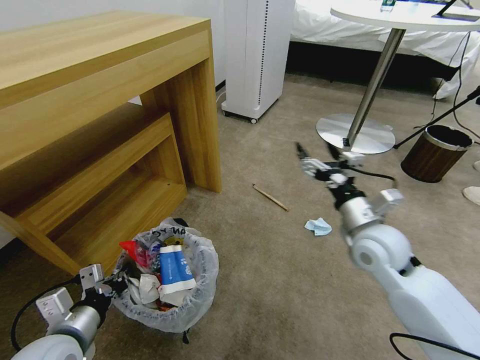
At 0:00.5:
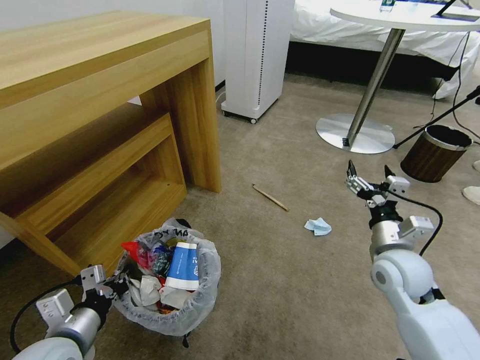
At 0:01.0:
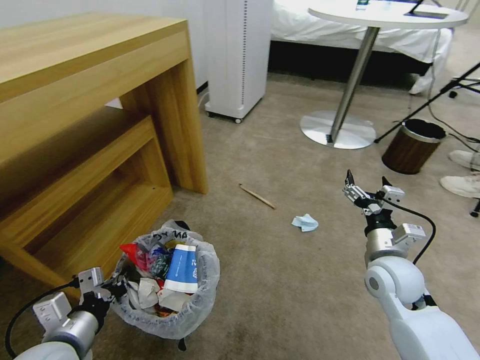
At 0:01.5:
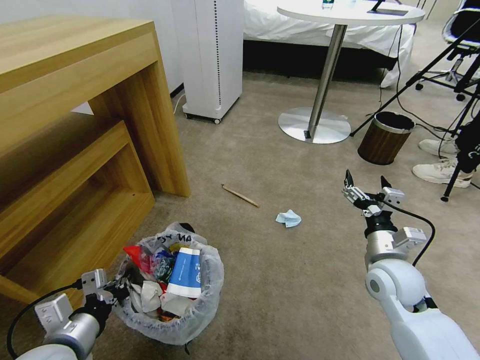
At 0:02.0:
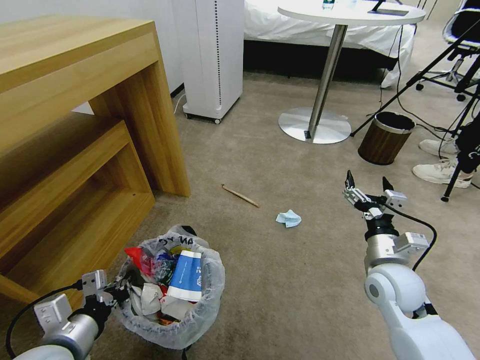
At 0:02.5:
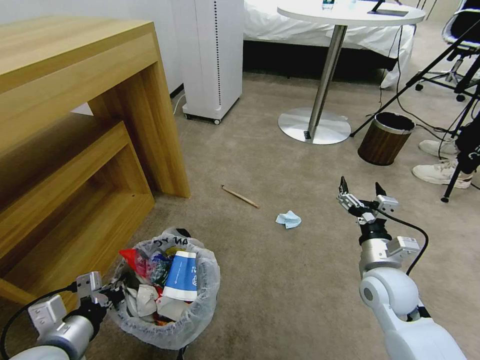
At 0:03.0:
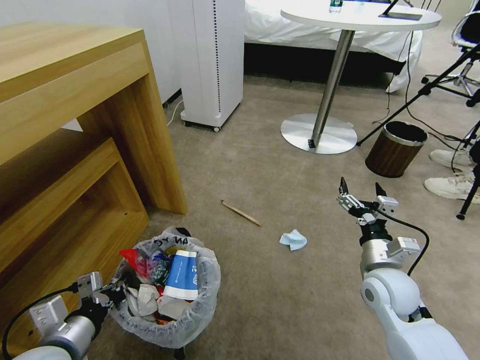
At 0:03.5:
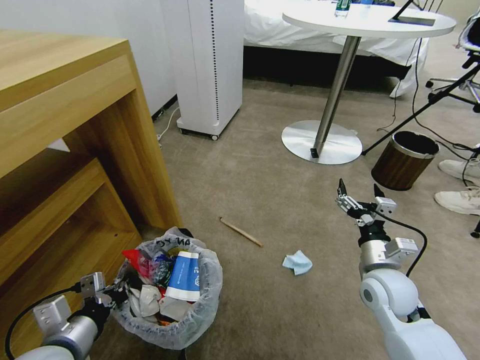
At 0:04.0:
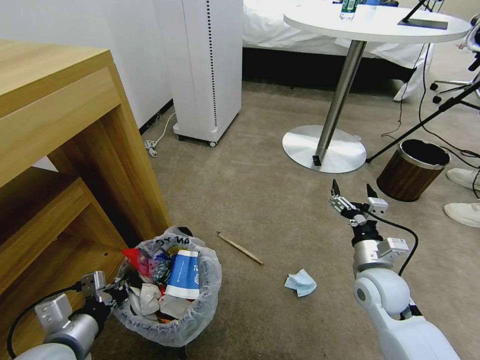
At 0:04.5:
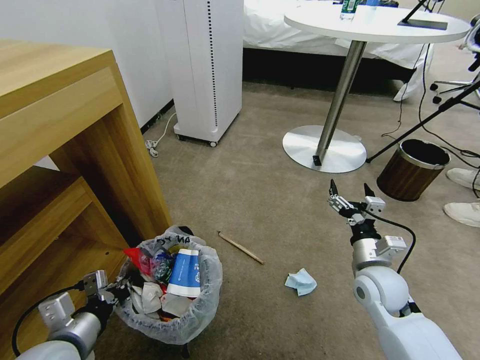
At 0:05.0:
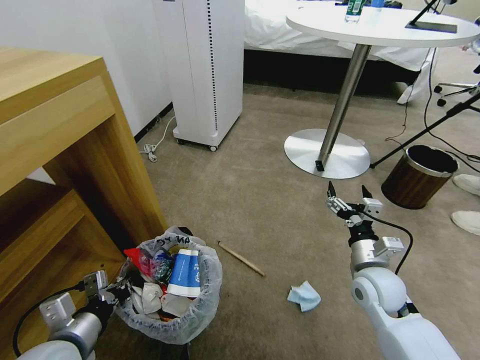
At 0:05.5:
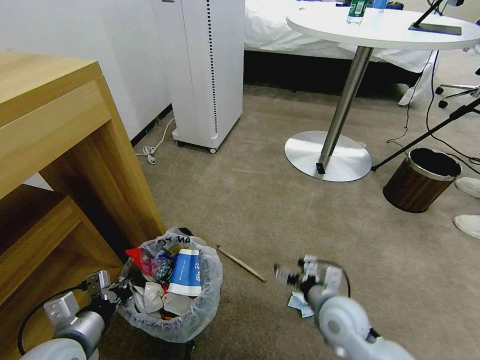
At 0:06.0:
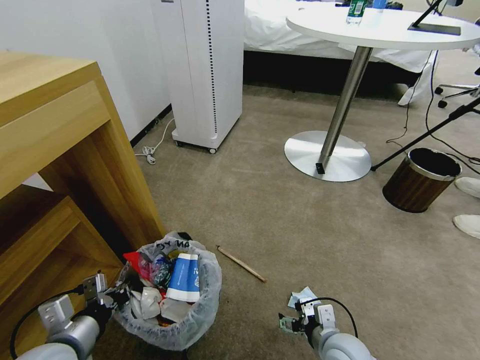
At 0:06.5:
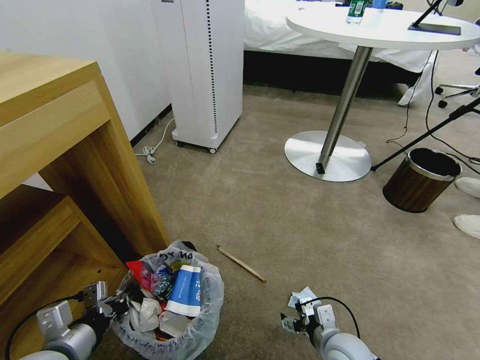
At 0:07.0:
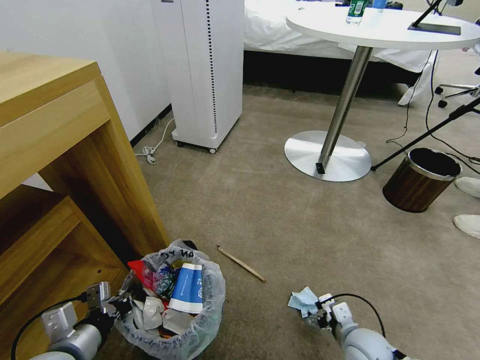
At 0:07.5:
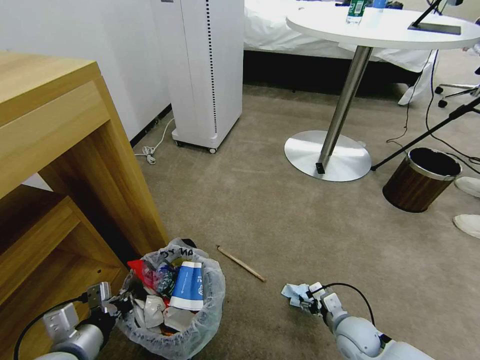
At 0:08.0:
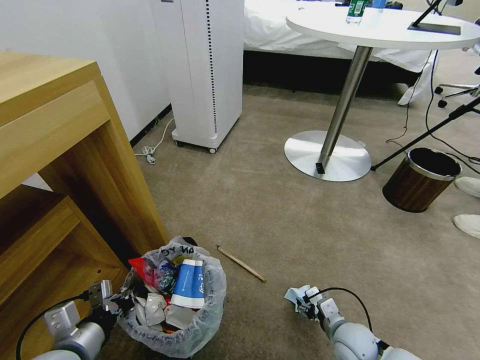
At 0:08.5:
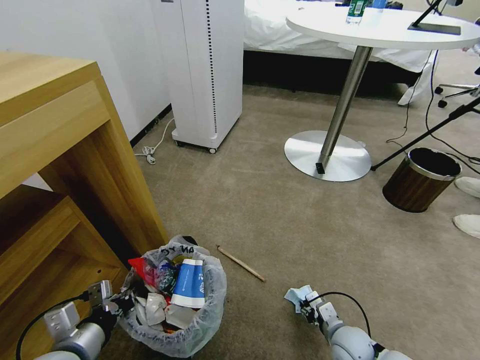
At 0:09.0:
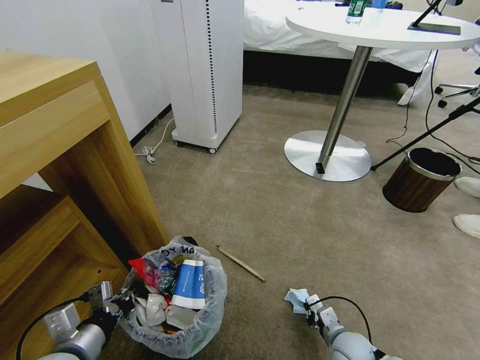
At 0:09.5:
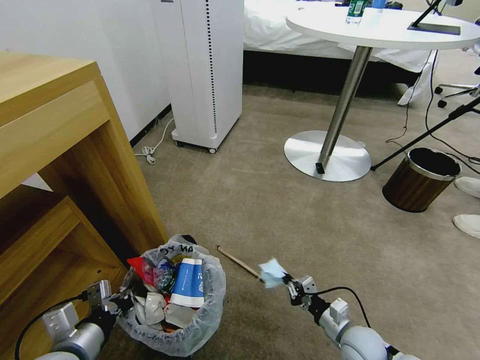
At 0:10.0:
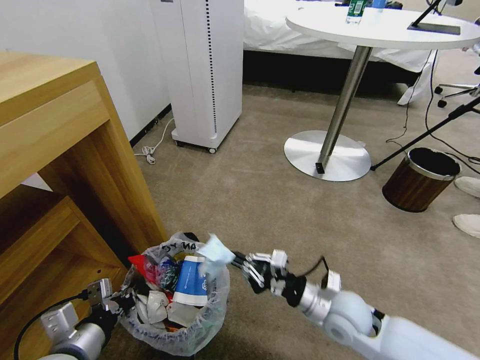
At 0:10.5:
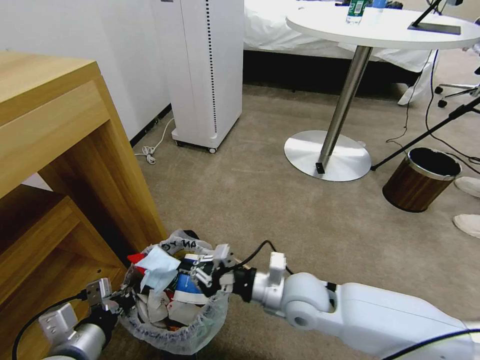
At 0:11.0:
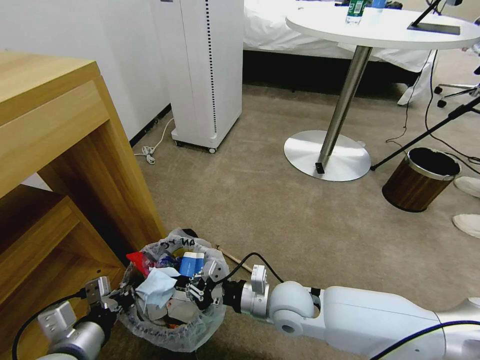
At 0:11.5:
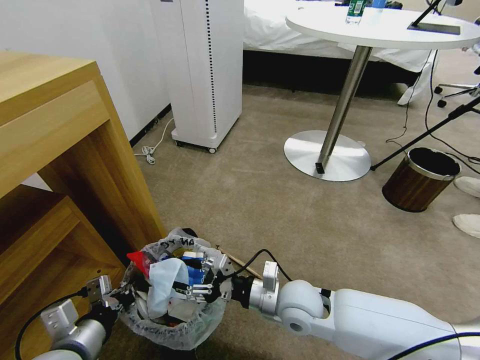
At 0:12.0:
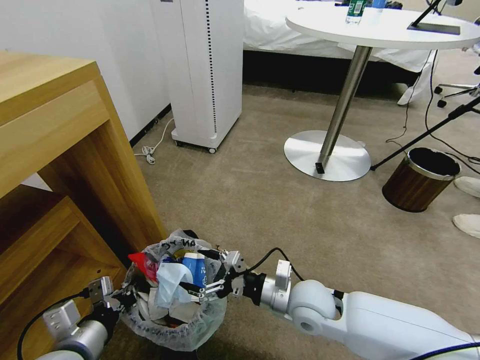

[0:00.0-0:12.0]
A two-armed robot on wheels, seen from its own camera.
Task of the whole recording: Pick up the trash bin and place the garbage on the floor into it.
0:00.0 to 0:02.0: The right gripper is displaced downward by some 5 cm.
0:04.0 to 0:06.0: The right gripper is displaced backward, downward and to the left by roughly 15 cm.
0:06.0 to 0:08.0: The right gripper is displaced downward and to the right by about 10 cm.
0:08.0 to 0:10.0: The right gripper shifts some 15 cm upward and to the left, and closes its fingers.
0:10.0 to 0:12.0: The right gripper shifts about 5 cm to the left, and opens its fingers.

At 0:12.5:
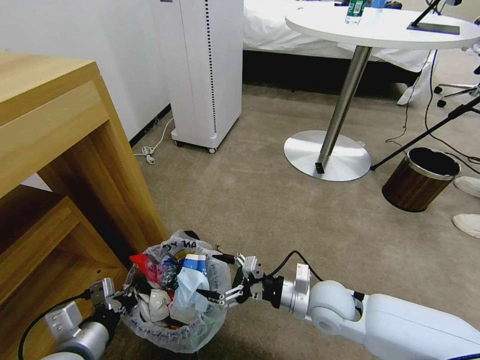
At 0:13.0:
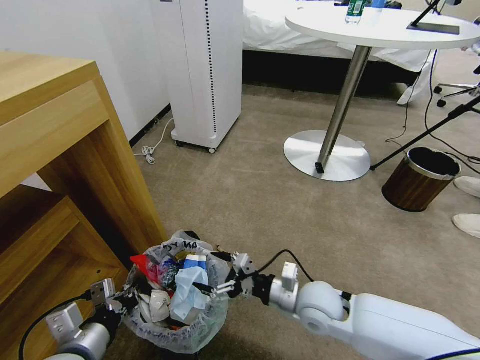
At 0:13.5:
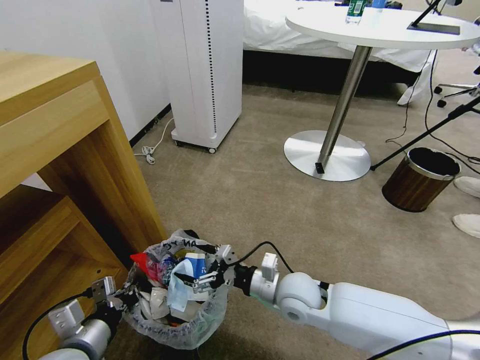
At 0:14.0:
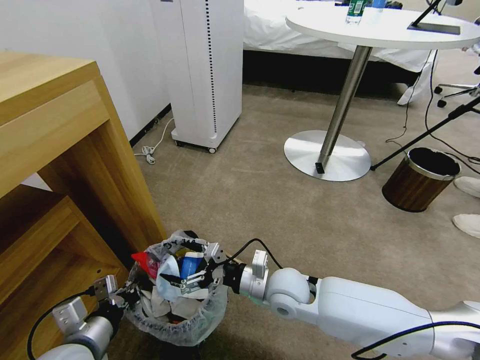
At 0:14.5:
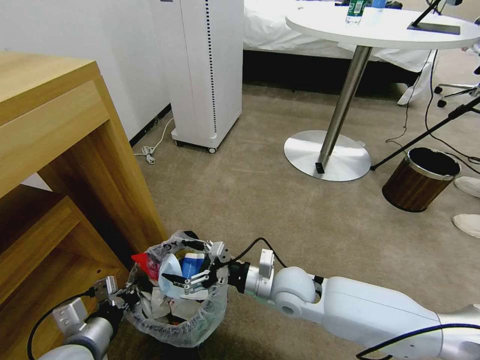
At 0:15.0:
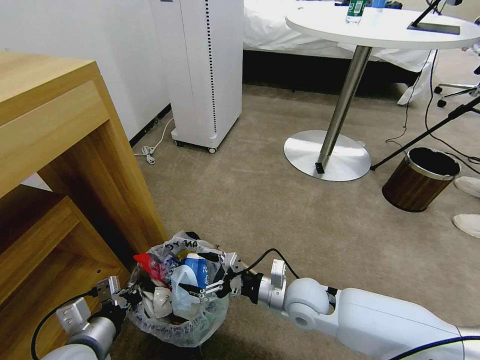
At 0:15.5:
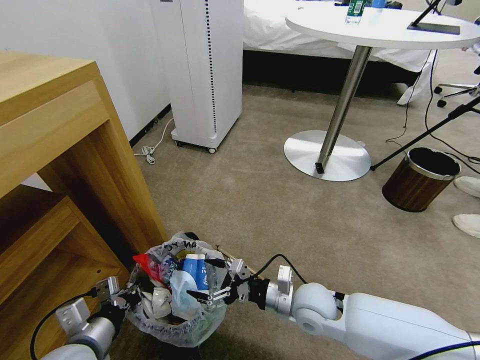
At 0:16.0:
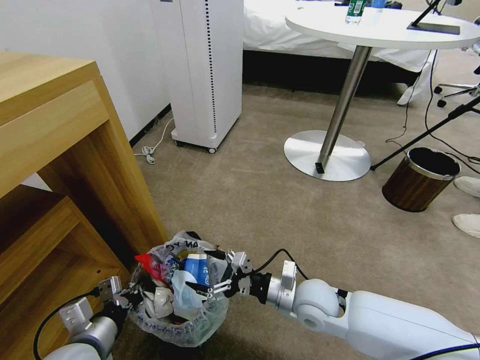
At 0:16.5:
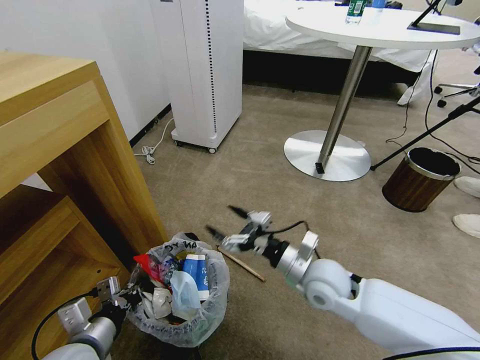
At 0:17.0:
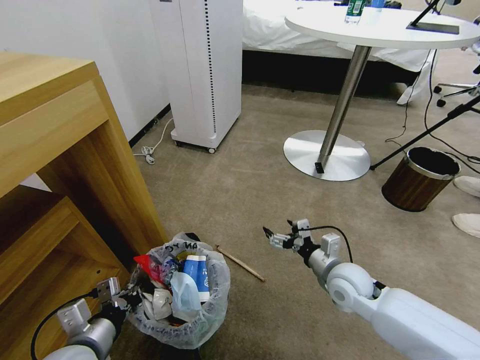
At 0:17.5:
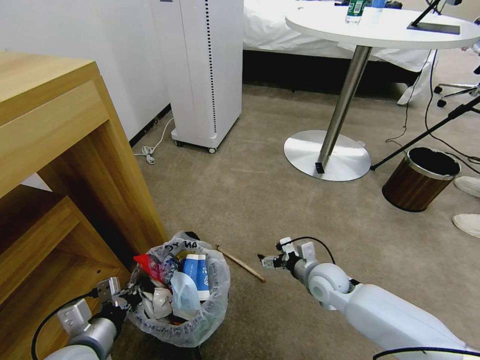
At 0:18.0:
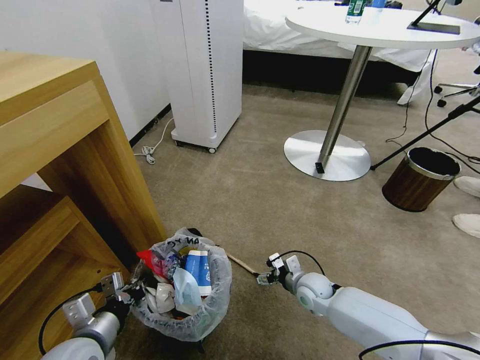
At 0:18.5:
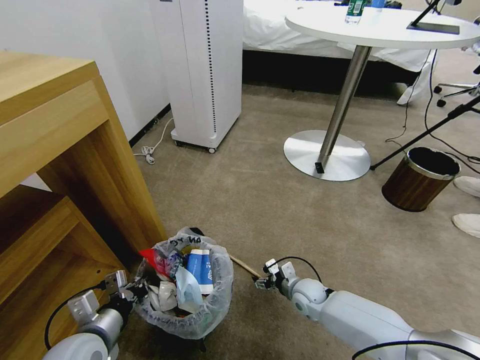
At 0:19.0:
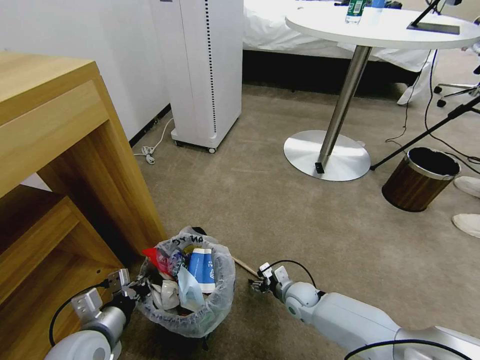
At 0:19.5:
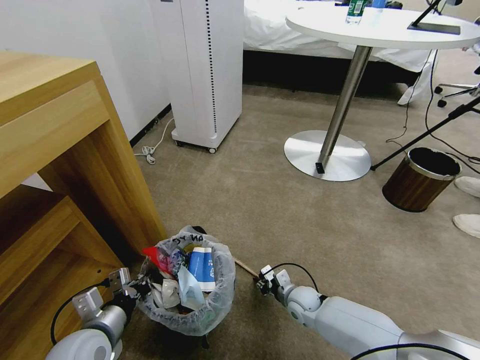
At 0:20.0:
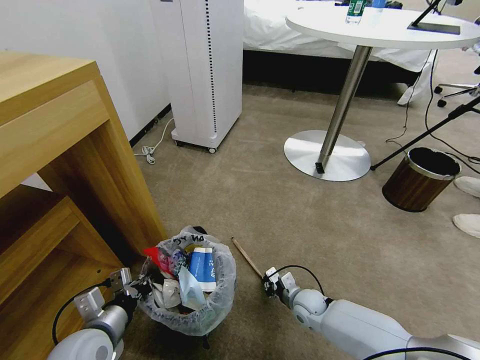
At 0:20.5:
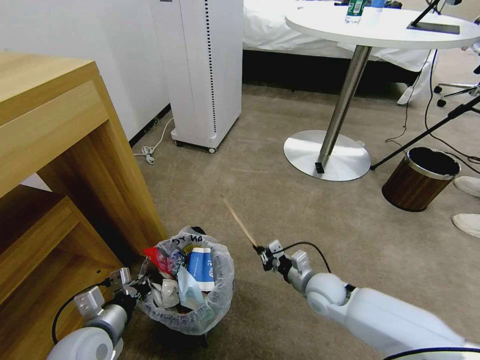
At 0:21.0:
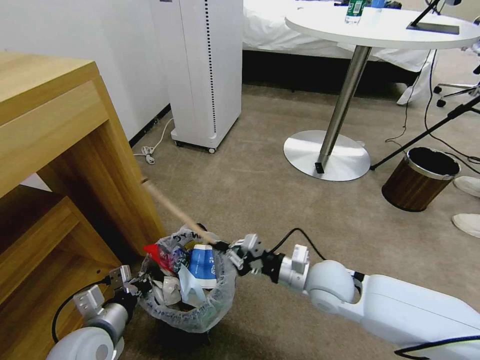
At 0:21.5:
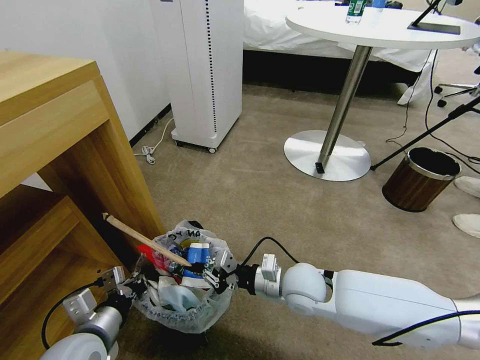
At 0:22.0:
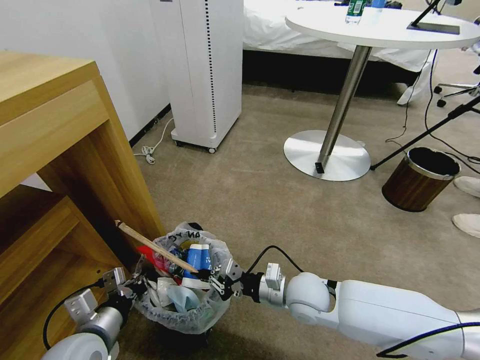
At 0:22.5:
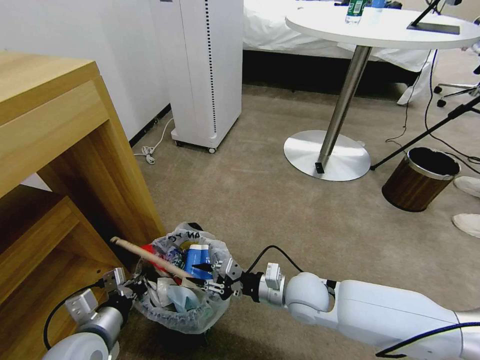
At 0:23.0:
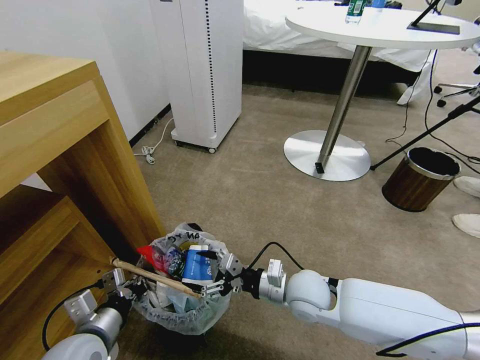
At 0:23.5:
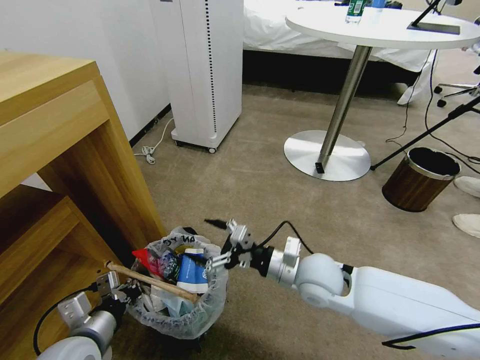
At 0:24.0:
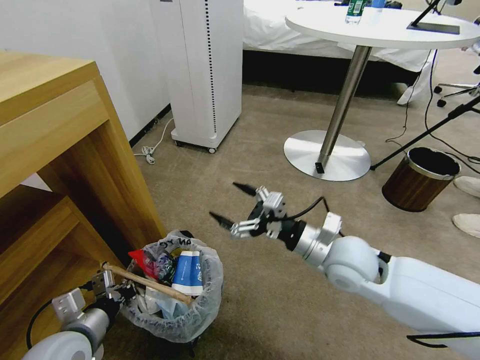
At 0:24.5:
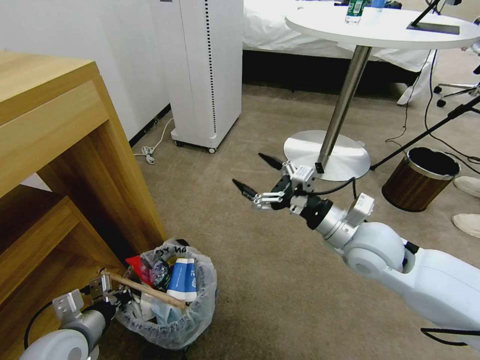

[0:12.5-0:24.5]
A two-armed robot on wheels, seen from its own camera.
Task of the whole recording: Pick up the trash bin and place the garbage on the floor into it.
0:12.5 to 0:14.5: The right gripper travels to the left by some 10 cm.
0:14.5 to 0:16.5: The right gripper shifts some 5 cm to the right.
0:16.5 to 0:18.5: The right gripper is displaced downward by roughly 20 cm.
0:18.5 to 0:20.5: The right gripper is displaced upward by approximately 10 cm, and closes.
0:20.5 to 0:22.5: The right gripper is displaced to the left and upward by roughly 10 cm.
0:22.5 to 0:24.5: The right gripper heads upward and to the right, covering some 15 cm, and opens.

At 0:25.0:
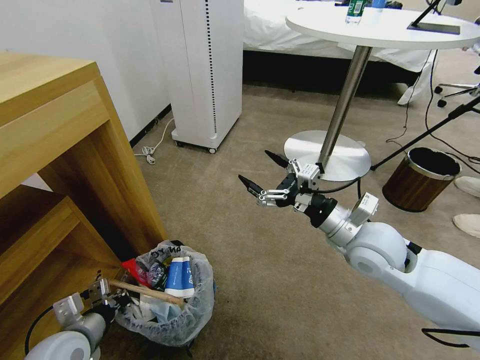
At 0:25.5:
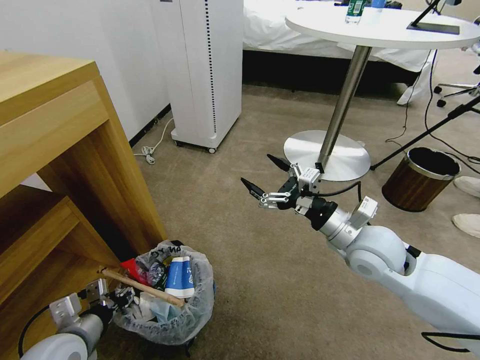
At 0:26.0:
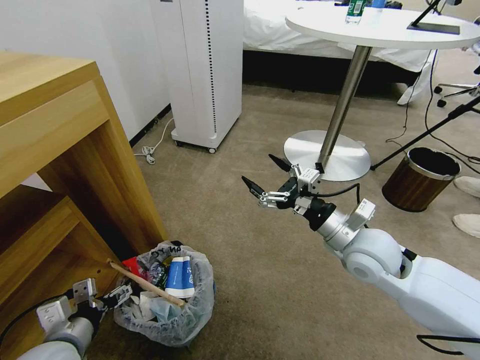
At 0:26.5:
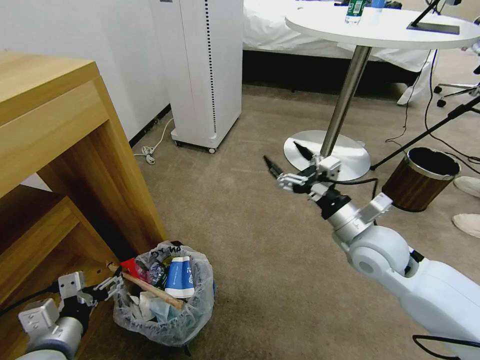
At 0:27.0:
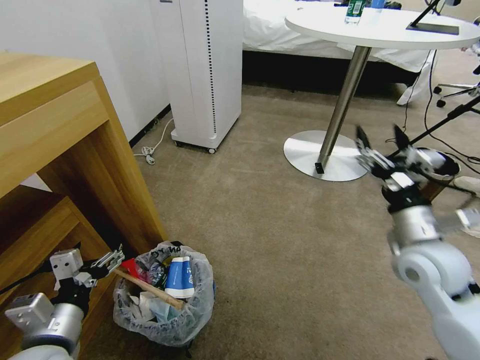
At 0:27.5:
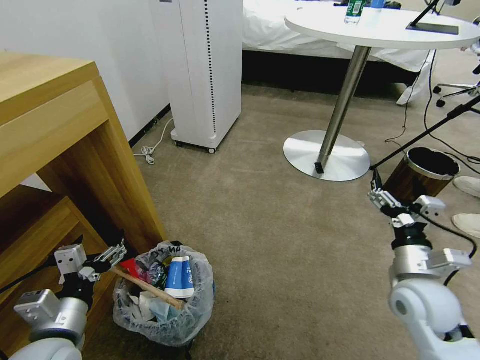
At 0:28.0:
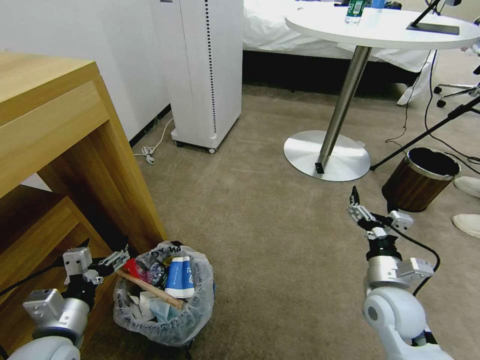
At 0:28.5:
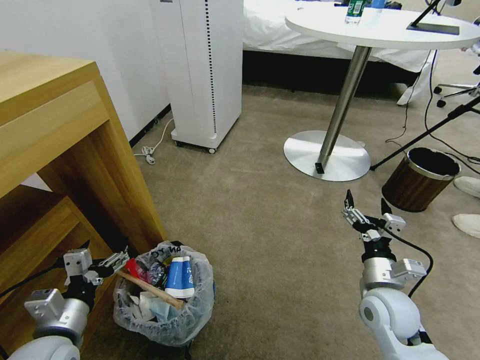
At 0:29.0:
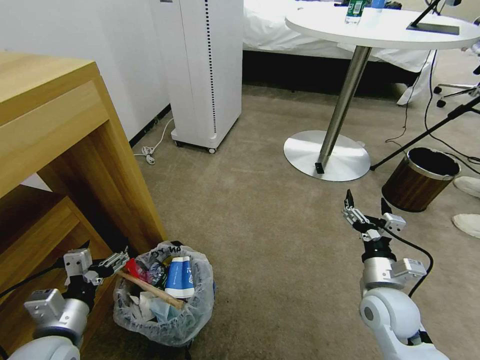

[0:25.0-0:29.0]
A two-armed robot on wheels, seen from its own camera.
Task of the whole recording: Pick up the trash bin and place the garbage on the floor into it.
0:25.0 to 0:27.0: The right gripper moves to the right, roughly 10 cm, while the left gripper moves upward, approximately 10 cm, and opens up.
0:27.0 to 0:29.0: The right gripper is displaced downward by approximately 10 cm.
